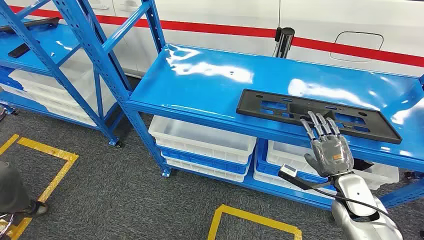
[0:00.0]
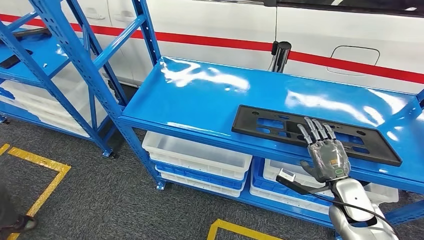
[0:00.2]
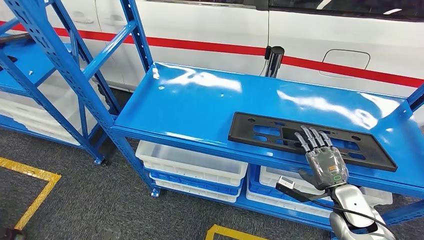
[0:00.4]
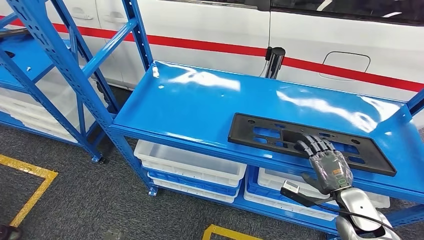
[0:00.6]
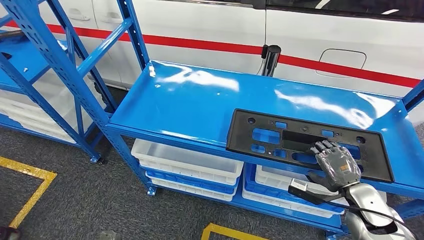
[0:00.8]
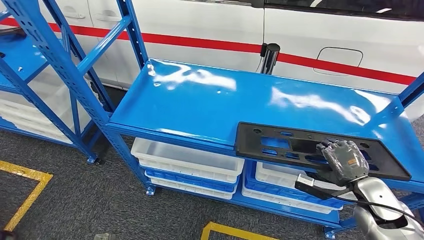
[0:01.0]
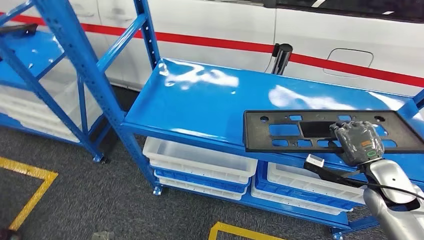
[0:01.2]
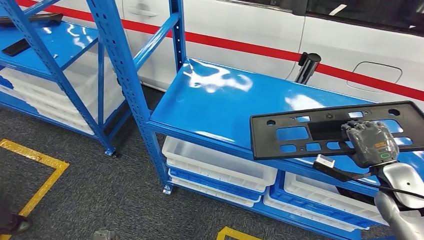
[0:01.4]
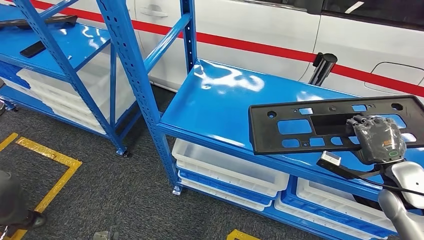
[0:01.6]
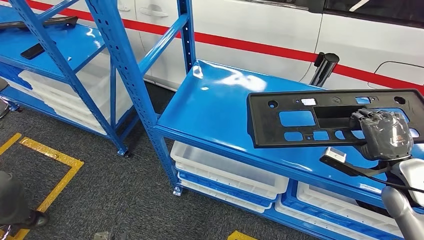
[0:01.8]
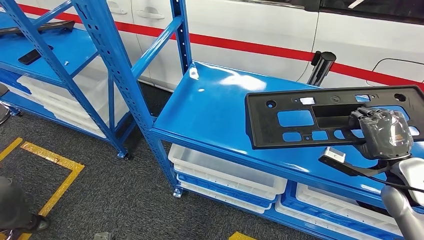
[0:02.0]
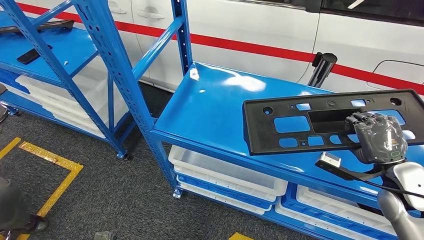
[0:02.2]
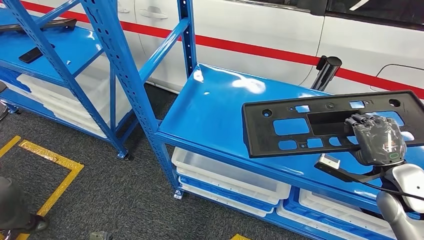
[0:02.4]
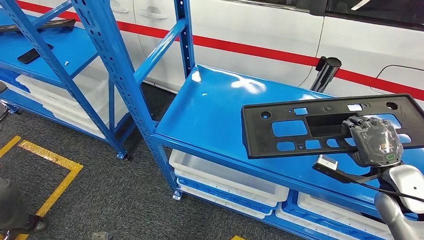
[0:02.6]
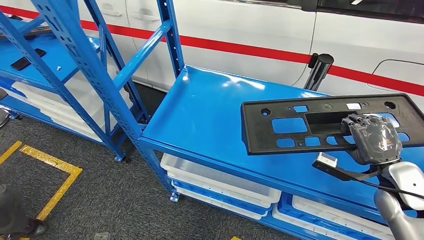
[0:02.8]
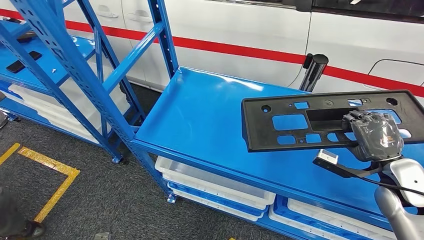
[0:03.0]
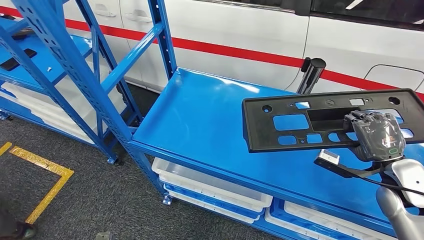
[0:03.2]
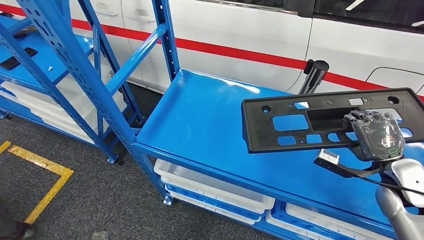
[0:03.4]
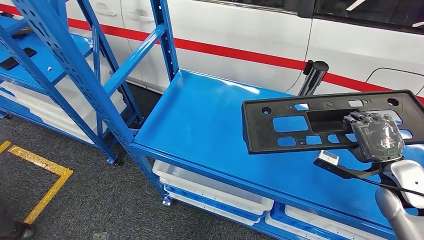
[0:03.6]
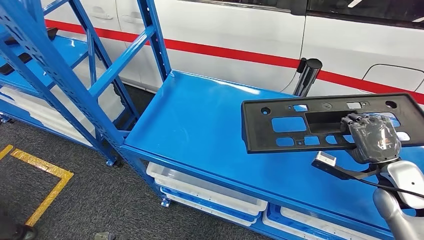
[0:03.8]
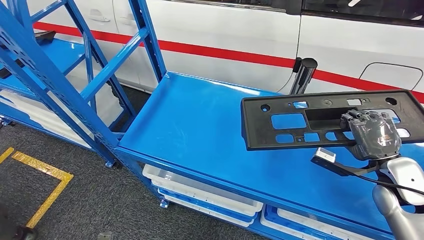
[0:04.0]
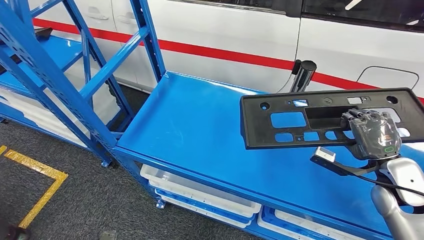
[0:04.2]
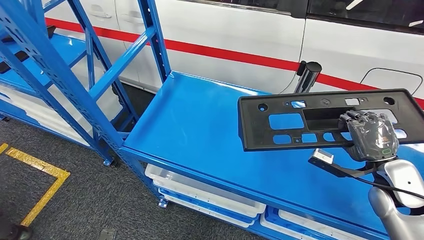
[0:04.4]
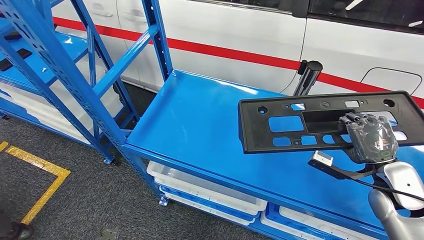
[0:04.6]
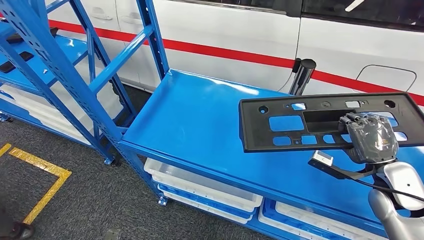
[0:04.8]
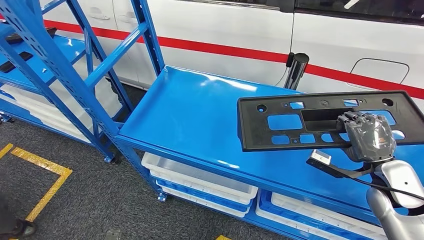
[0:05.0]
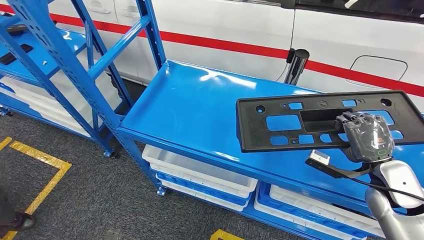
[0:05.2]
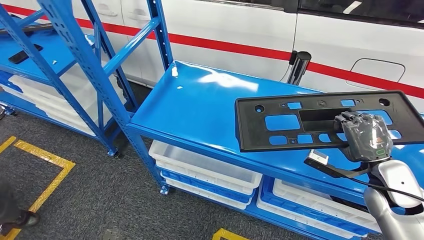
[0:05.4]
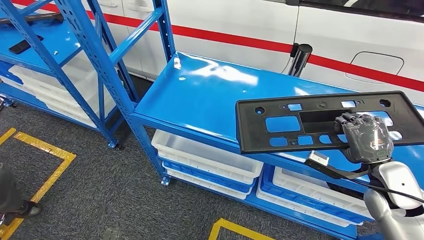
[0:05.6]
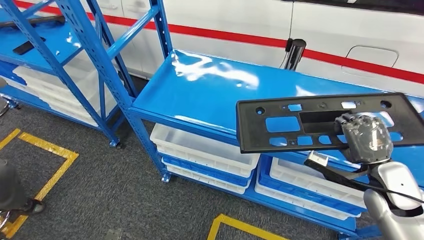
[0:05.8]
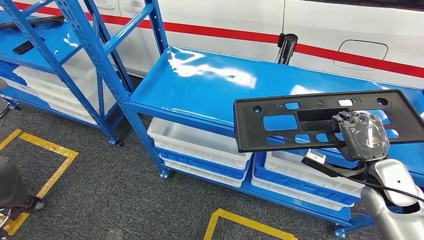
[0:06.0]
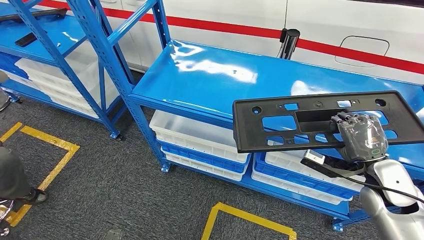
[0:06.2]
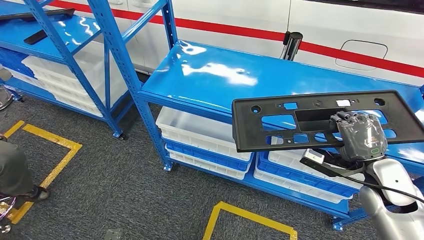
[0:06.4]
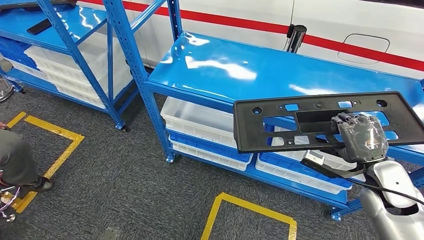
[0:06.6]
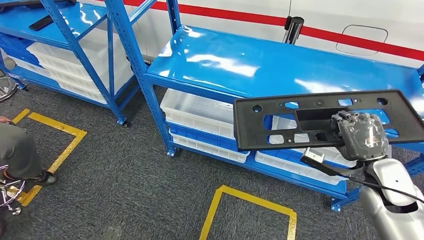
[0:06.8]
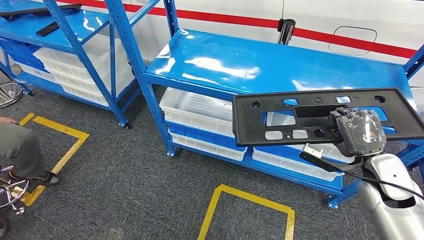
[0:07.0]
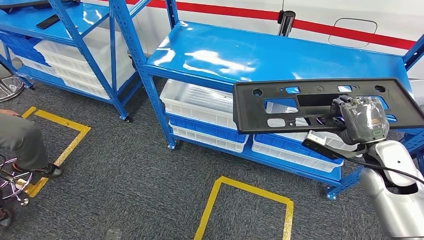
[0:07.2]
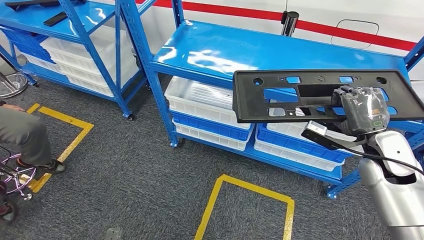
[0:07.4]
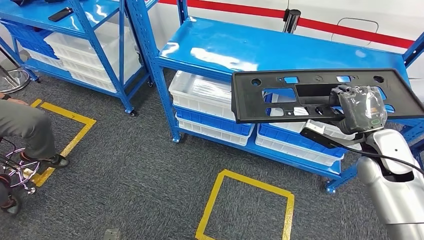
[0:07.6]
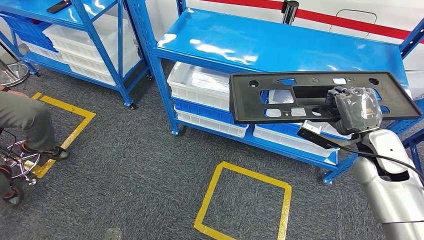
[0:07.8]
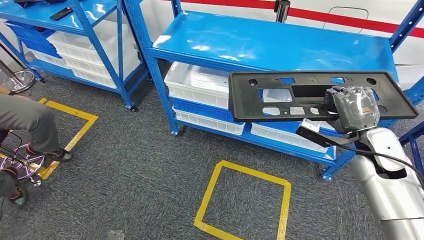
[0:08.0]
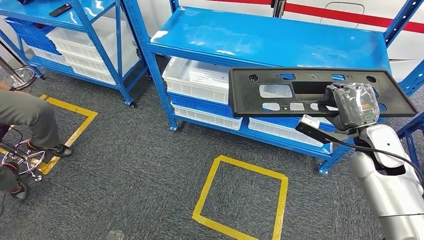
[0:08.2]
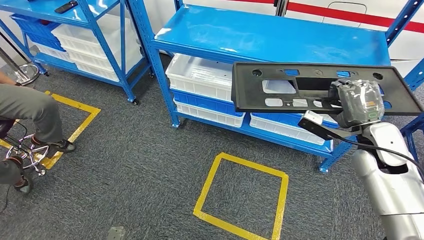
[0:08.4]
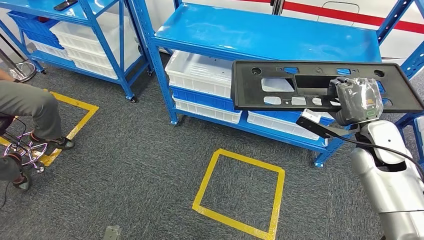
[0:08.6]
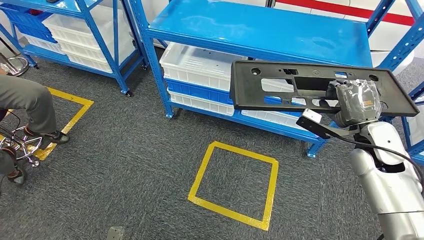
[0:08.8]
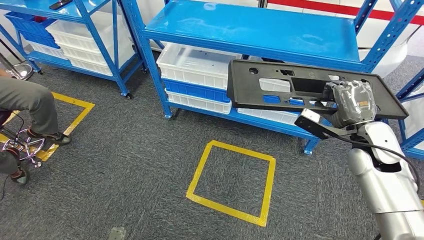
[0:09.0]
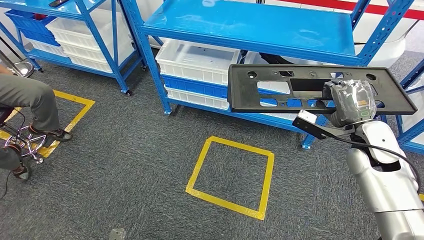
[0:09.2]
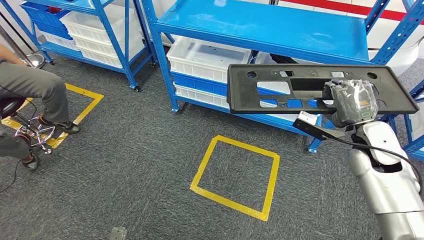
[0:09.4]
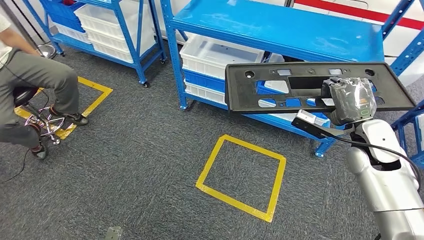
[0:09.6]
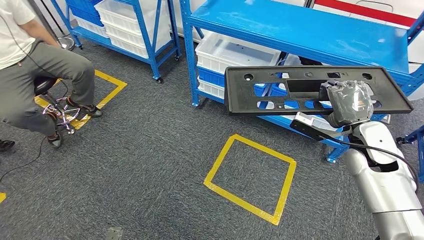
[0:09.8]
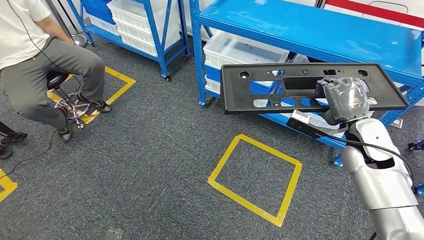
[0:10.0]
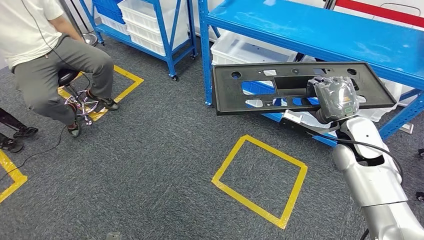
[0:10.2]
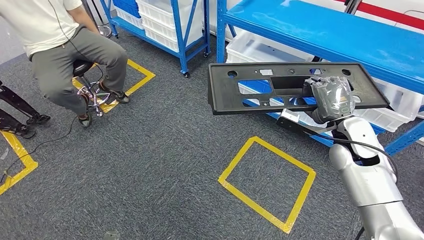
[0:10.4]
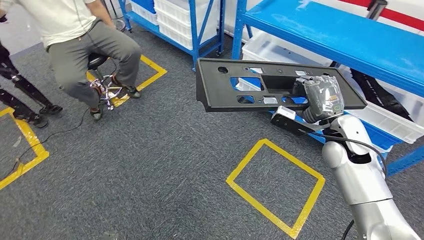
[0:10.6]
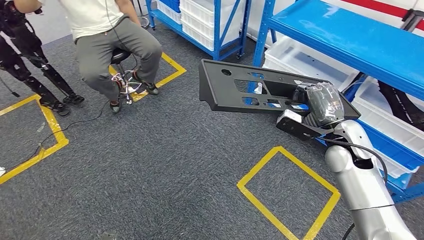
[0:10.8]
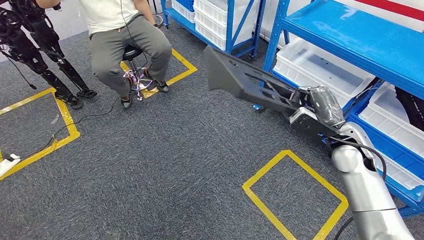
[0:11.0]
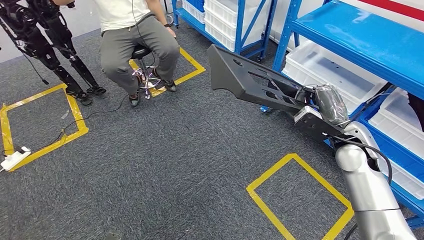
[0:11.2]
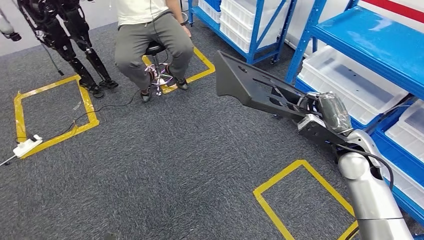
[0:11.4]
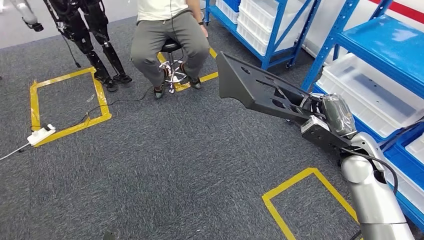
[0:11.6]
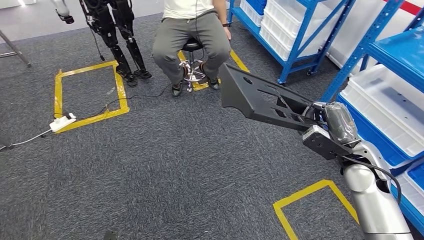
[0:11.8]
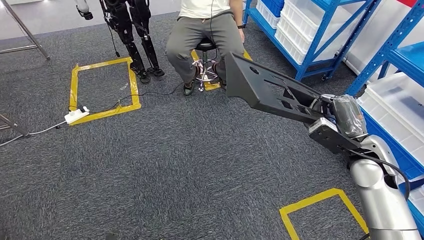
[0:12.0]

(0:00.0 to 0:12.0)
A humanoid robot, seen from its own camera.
Step, 0:00.0 - 0:06.2: Pick up the large material from the shelf.

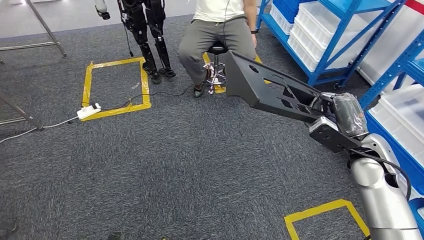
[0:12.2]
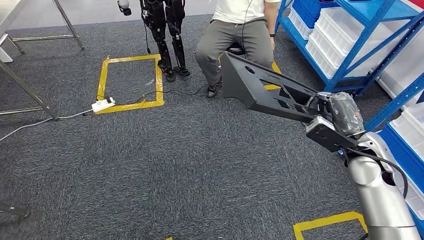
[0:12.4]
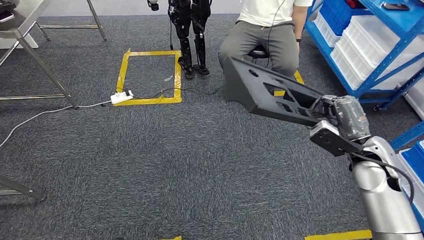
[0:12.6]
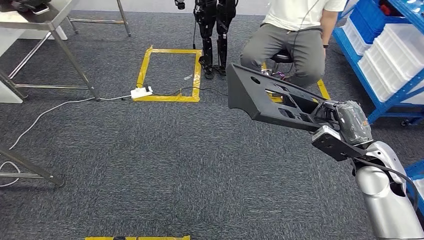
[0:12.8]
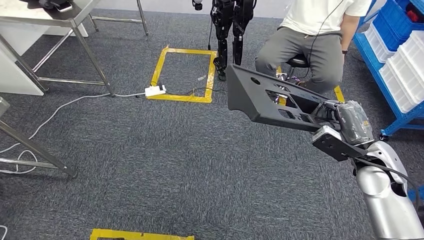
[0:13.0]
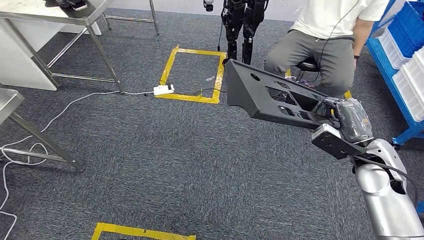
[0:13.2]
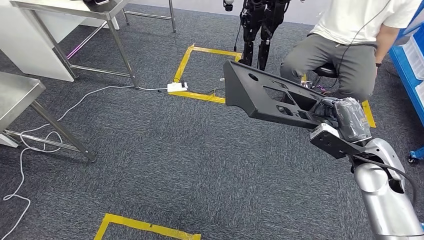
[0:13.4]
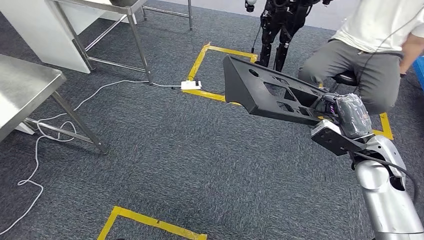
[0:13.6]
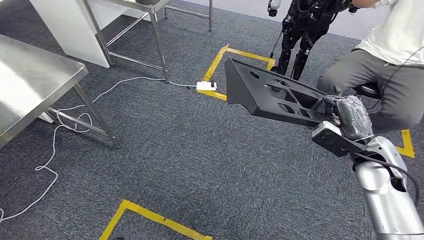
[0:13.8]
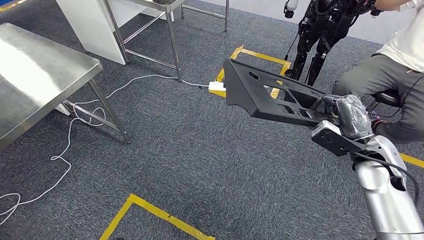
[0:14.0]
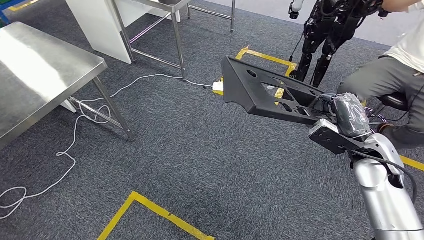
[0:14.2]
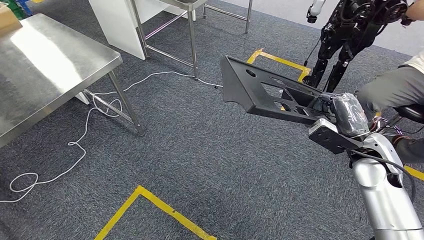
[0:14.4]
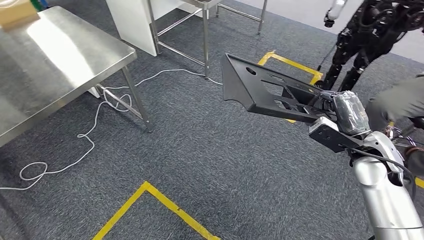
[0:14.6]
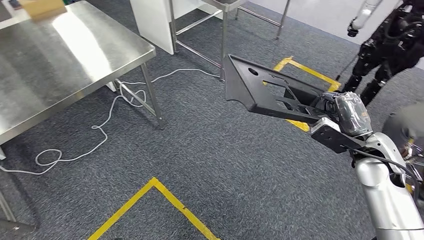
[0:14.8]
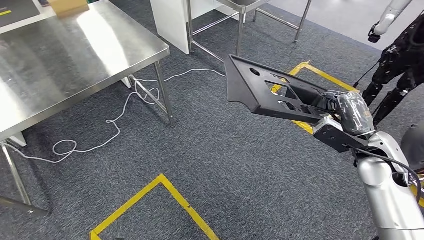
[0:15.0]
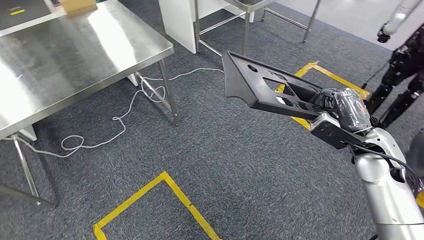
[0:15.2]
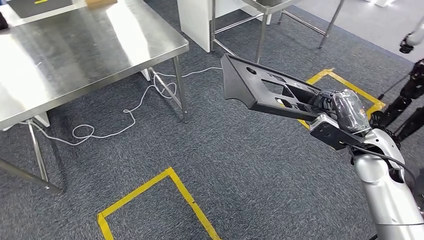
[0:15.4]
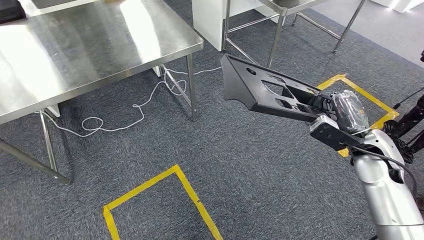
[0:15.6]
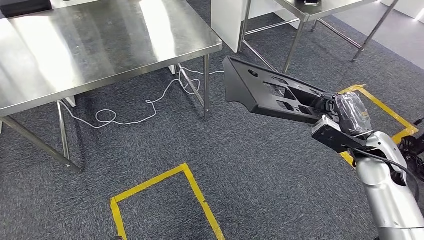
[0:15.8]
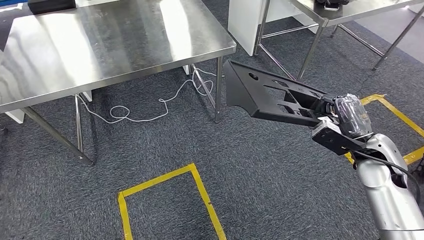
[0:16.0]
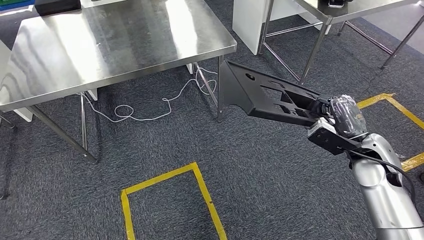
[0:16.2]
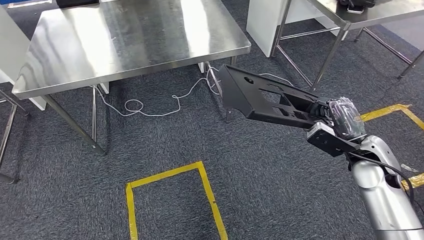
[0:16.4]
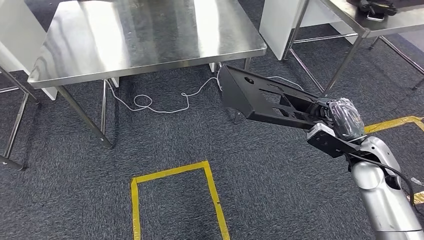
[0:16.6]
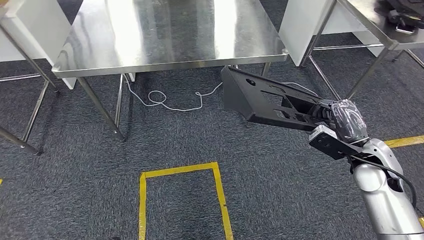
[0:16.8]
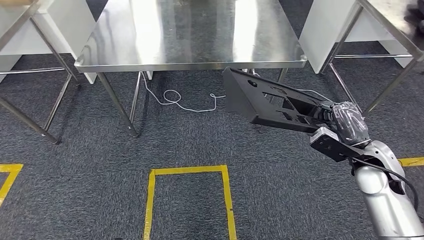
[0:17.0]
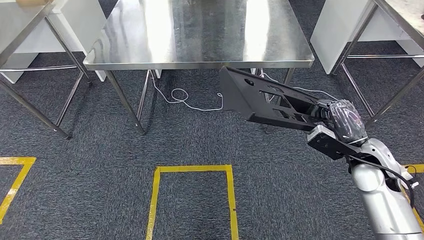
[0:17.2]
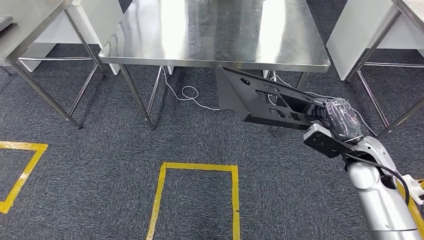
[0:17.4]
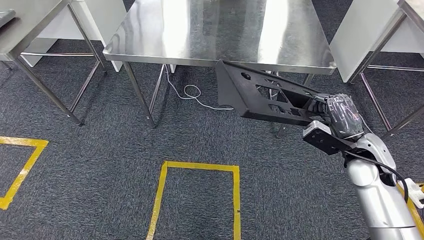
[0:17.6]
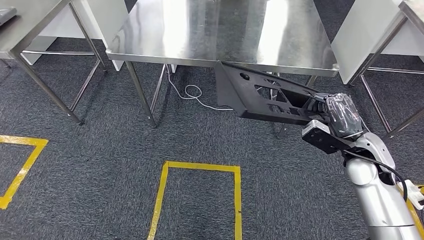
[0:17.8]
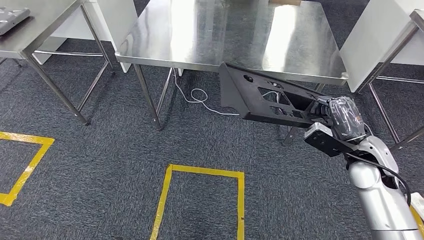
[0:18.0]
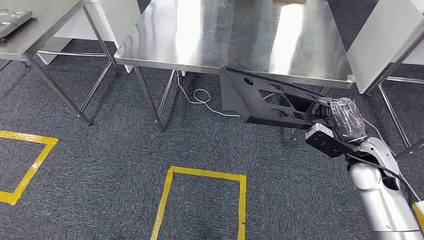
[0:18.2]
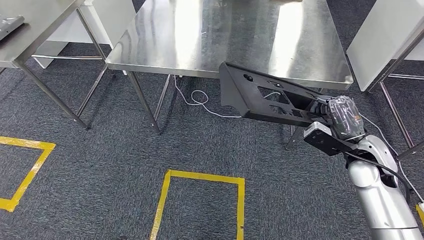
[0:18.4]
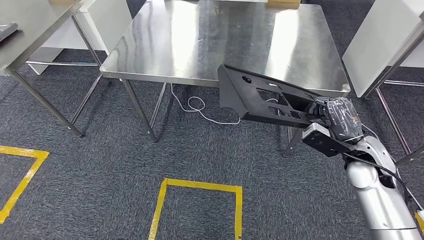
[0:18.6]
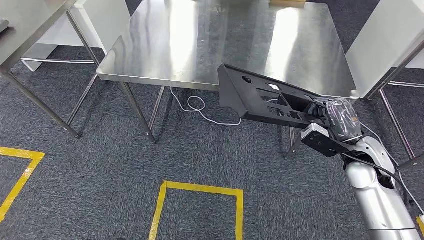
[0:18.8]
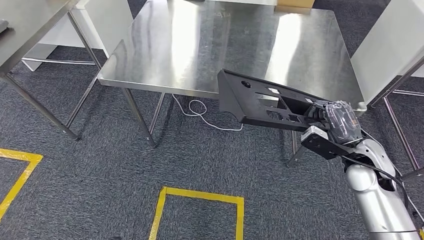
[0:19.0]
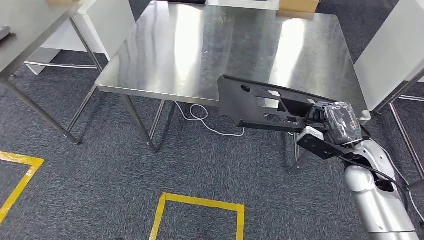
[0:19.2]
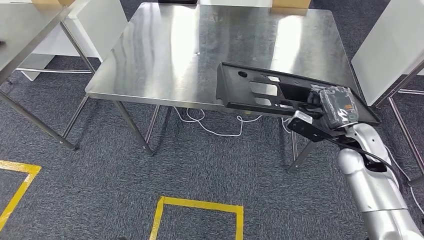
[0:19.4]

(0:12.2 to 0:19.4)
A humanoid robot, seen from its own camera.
Step, 0:12.2 - 0:17.0: Move the large material to the workbench.
